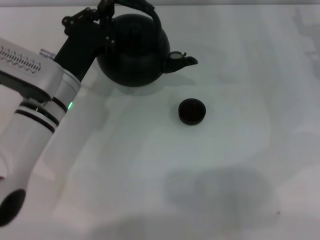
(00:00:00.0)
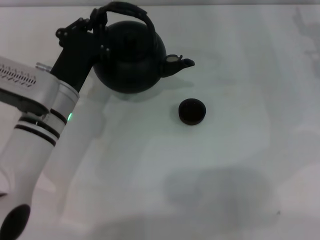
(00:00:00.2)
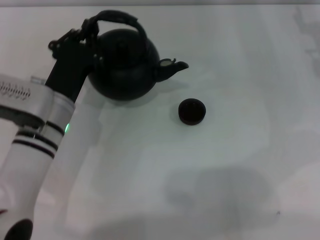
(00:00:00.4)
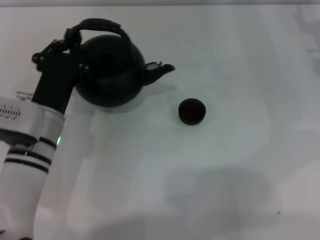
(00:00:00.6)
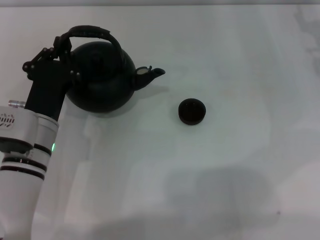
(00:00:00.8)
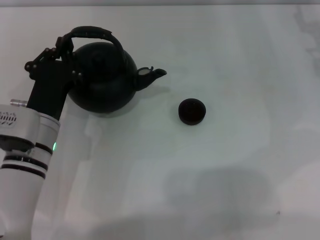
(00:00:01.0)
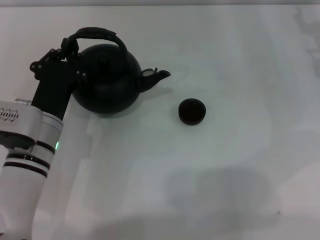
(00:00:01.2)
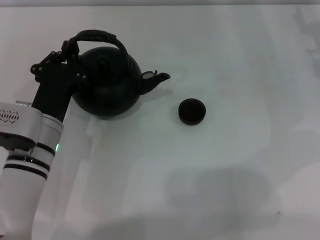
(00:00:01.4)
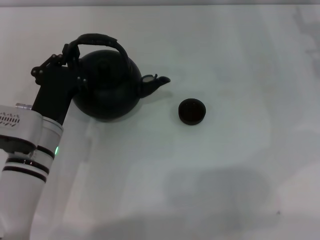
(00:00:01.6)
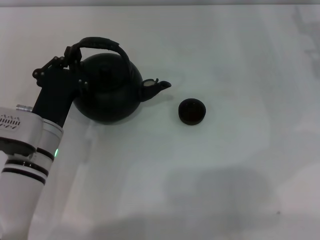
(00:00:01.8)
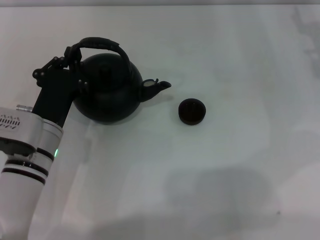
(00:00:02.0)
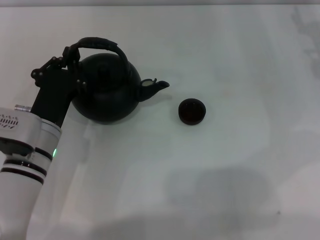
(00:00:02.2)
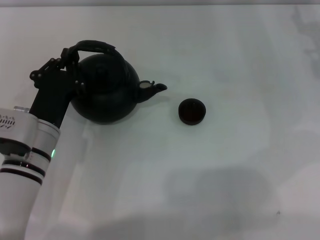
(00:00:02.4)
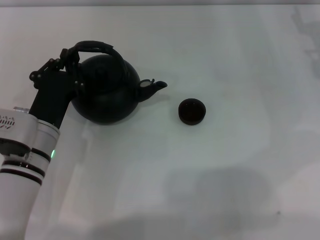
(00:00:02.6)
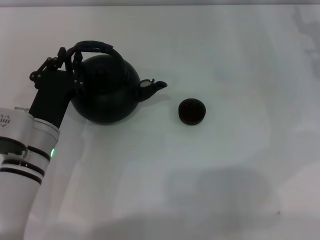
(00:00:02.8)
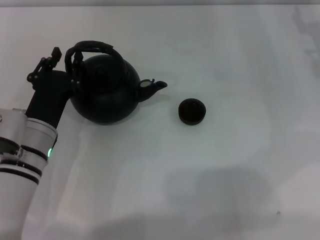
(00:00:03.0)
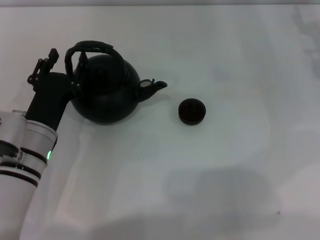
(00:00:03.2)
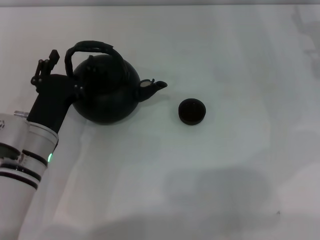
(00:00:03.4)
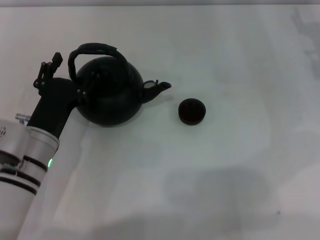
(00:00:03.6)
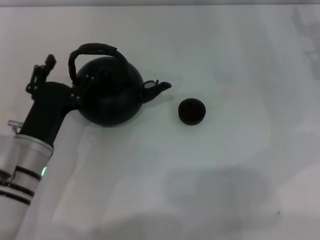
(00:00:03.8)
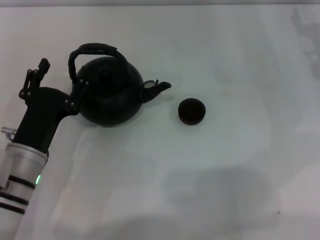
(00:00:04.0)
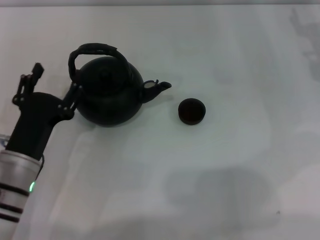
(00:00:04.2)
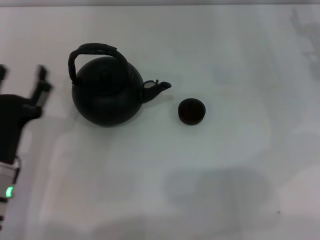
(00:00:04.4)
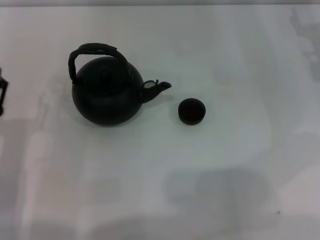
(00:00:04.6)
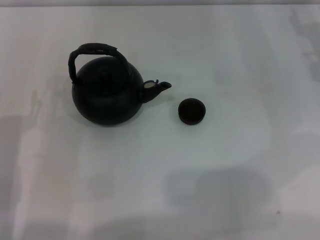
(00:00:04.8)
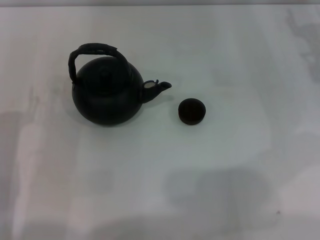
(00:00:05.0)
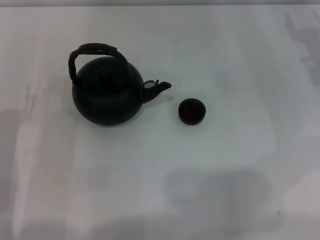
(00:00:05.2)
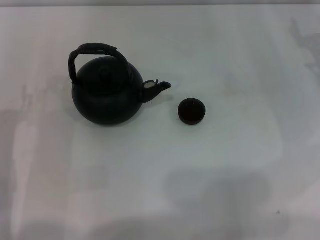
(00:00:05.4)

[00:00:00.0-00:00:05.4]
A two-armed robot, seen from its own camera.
Task of the whole recording: Grasp the handle of the teapot with one hand and pour tea into the teacup.
Step, 00:00:00.0 to 00:00:04.0: Put down the teapot with the left gripper.
00:00:00.0 to 00:00:01.4: The left gripper heads backward, covering roughly 5 cm.
00:00:01.4 to 00:00:02.8: The two grippers keep their place.
00:00:02.8 to 00:00:04.0: The left gripper opens its fingers.
00:00:04.0 to 00:00:05.4: The left gripper travels to the left by roughly 5 cm.
